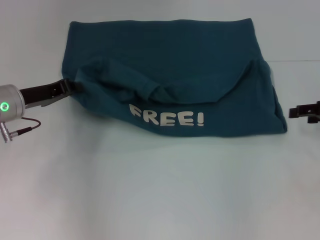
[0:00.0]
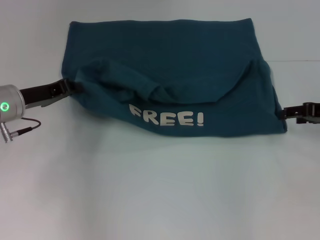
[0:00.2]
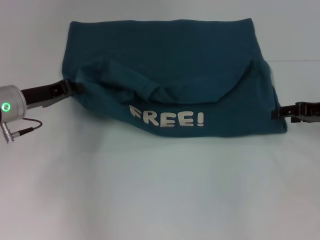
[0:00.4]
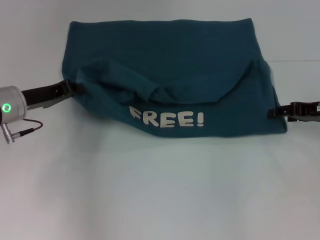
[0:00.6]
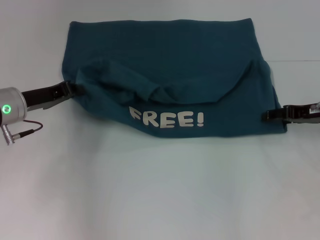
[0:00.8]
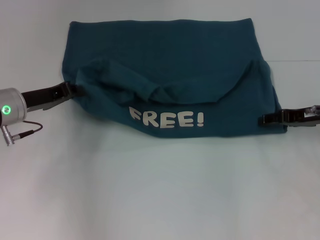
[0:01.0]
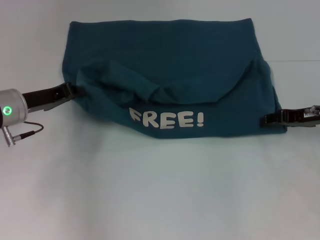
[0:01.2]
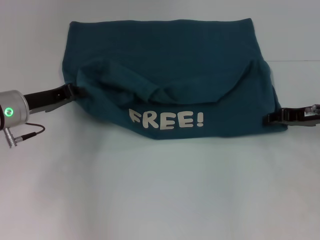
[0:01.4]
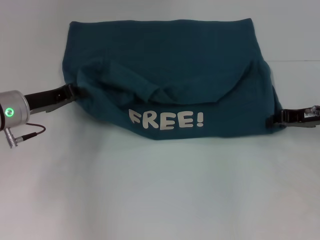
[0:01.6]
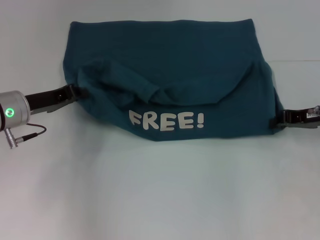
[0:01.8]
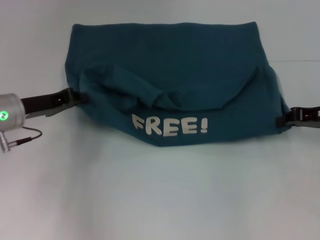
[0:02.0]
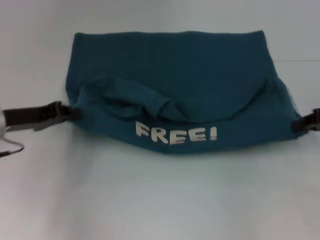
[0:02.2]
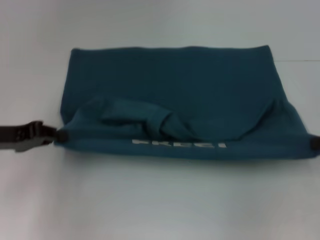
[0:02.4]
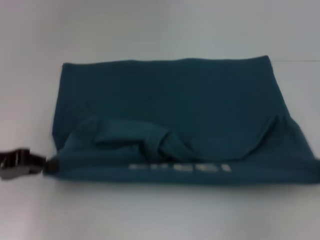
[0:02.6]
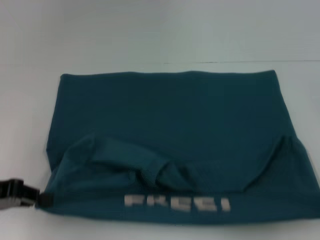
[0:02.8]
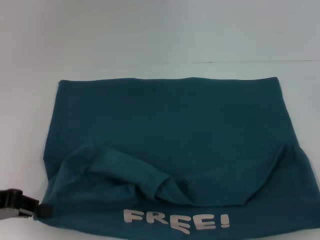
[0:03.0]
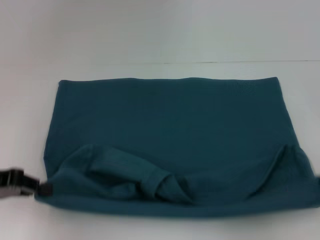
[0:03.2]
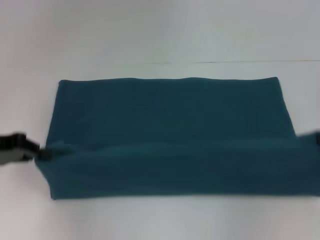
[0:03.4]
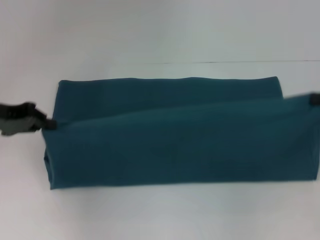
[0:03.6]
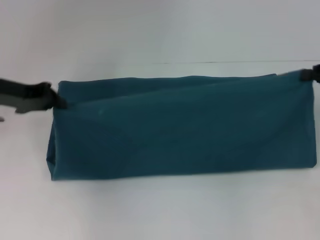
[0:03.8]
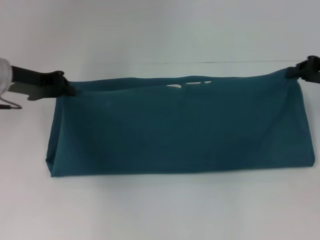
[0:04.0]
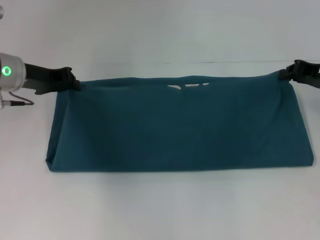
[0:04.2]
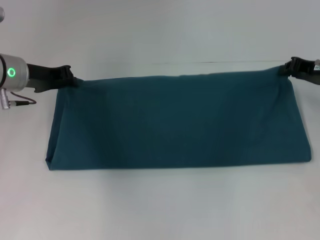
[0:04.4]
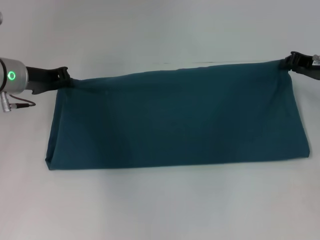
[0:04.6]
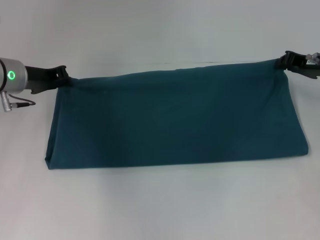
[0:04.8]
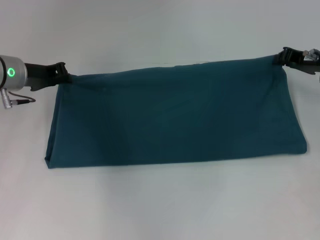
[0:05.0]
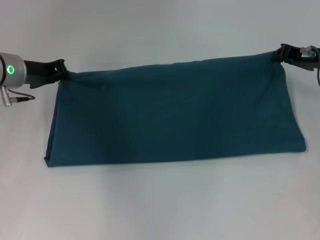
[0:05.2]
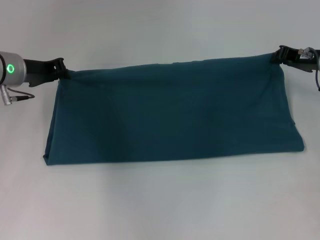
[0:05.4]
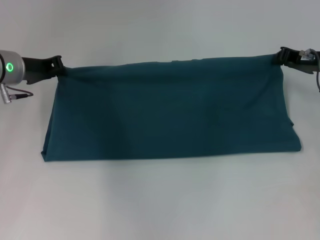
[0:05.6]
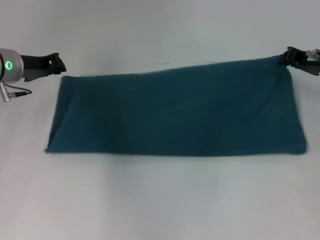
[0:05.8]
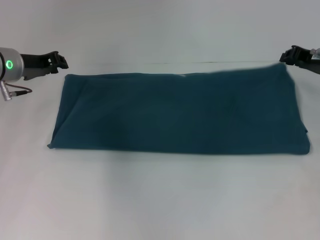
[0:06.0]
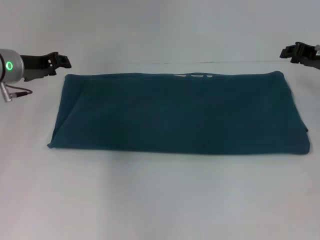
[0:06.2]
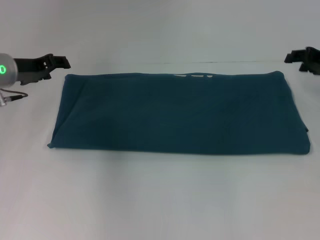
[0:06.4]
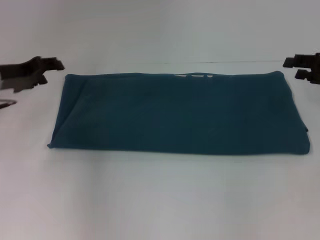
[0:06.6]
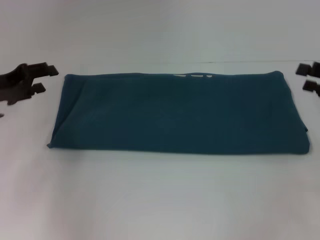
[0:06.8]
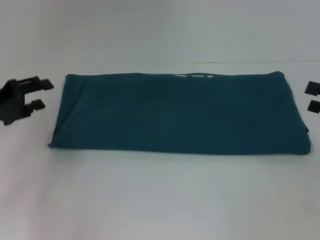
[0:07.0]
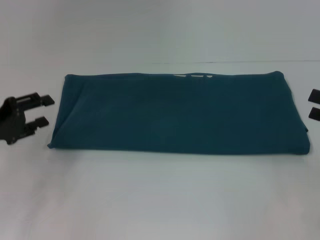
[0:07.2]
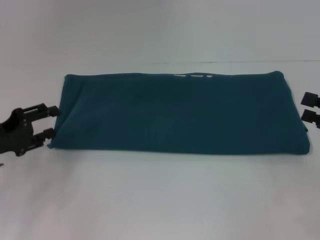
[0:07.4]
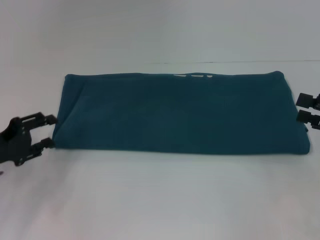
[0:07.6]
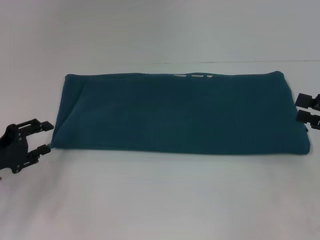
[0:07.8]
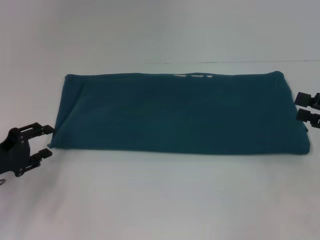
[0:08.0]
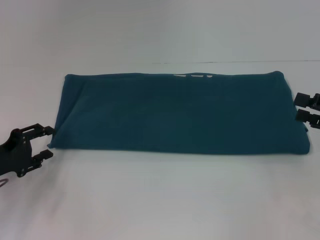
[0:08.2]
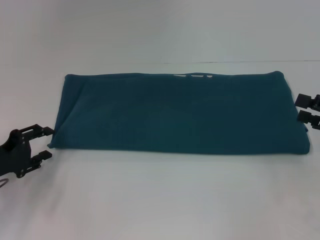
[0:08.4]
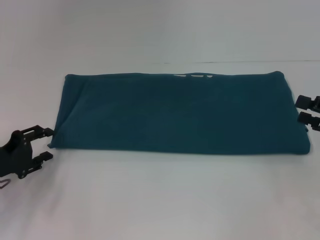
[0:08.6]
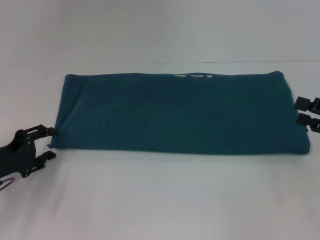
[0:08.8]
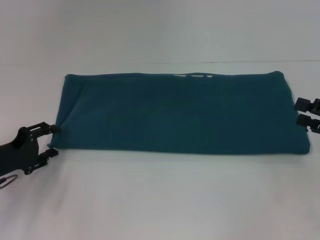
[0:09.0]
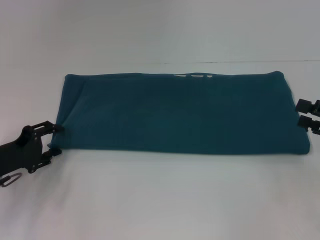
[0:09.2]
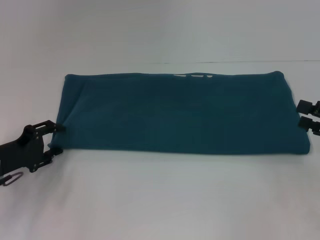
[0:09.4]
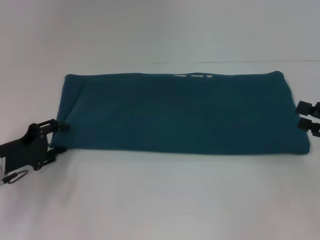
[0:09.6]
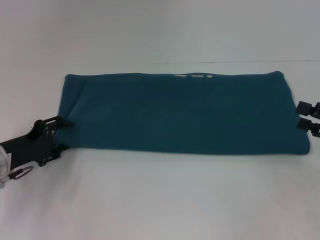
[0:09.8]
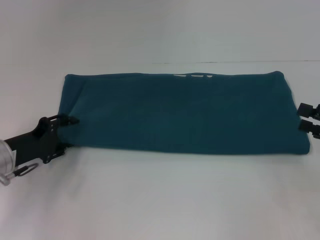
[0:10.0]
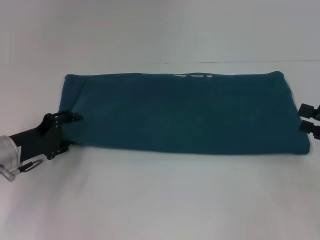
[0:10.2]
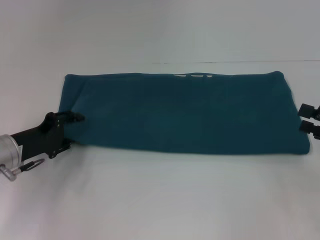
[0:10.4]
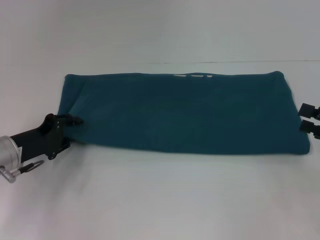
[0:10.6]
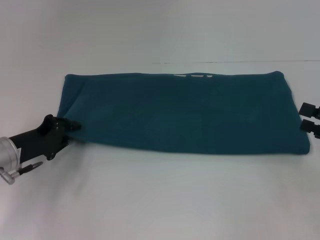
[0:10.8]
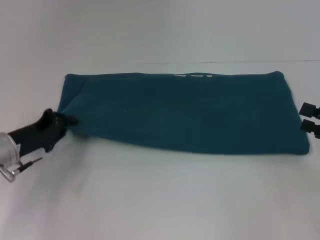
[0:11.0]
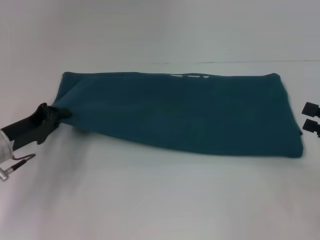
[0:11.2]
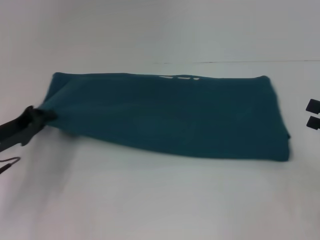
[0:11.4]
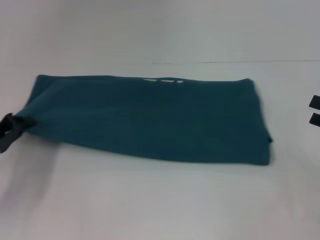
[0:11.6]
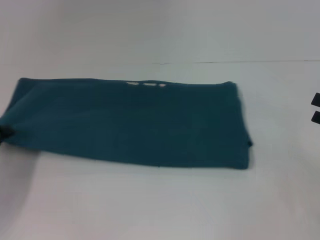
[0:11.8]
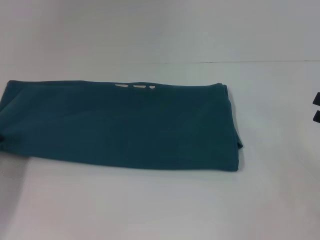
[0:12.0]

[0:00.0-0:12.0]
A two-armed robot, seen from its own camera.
Step, 0:00.0 to 0:02.8: Pull the clothes with your left hand.
Step, 0:00.0 to 0:02.8: Pull the clothes with your right hand.
Step, 0:03.0 to 0:06.2: Fold the clothes to the right.
0:00.0 to 0:01.6: The right gripper moves to the left, some 5 cm, and closes its fingers.
0:01.6 to 0:03.0: The right gripper goes roughly 15 cm backward and to the right, and closes. The left gripper is displaced backward and to the left by some 15 cm.
0:03.0 to 0:04.4: The left gripper moves forward and to the right, about 20 cm; the right gripper goes roughly 15 cm forward and to the left.
0:04.4 to 0:06.0: The grippers make only small movements.
0:06.0 to 0:07.6: The left gripper moves backward, downward and to the left, approximately 20 cm, and opens up, while the right gripper shifts approximately 15 cm backward and to the right, and opens up.
0:07.6 to 0:09.0: The grippers move only a little.
0:09.0 to 0:10.4: The grippers move only a little.
0:10.4 to 0:12.0: The left gripper travels to the left and backward by approximately 10 cm, and closes.

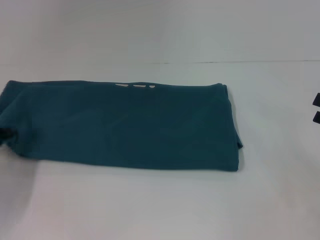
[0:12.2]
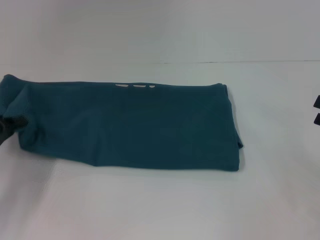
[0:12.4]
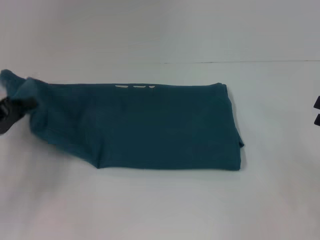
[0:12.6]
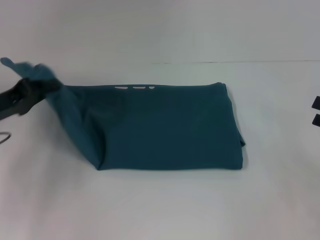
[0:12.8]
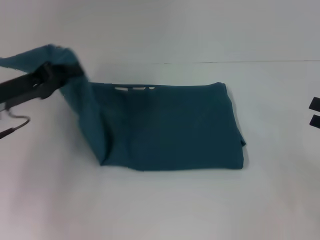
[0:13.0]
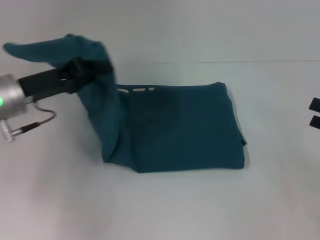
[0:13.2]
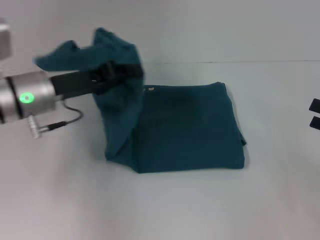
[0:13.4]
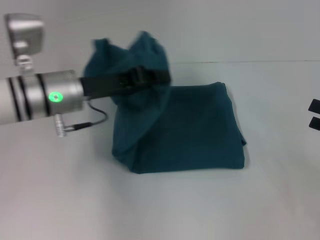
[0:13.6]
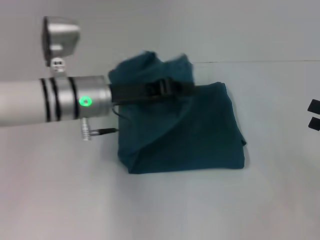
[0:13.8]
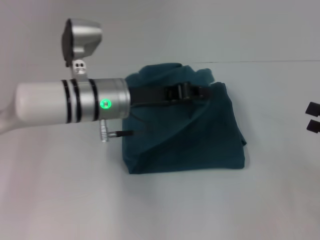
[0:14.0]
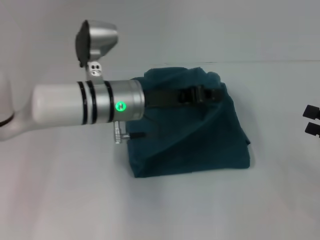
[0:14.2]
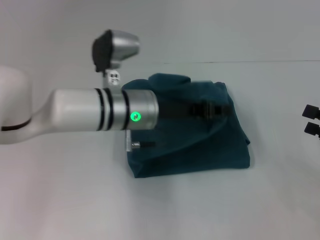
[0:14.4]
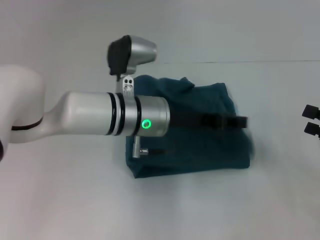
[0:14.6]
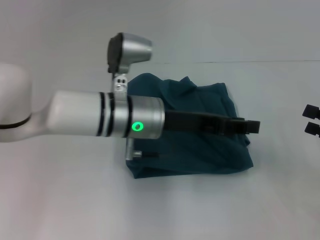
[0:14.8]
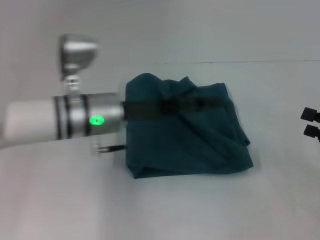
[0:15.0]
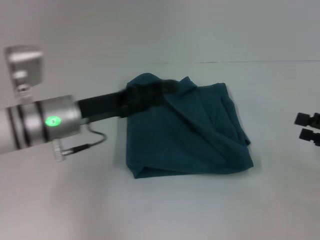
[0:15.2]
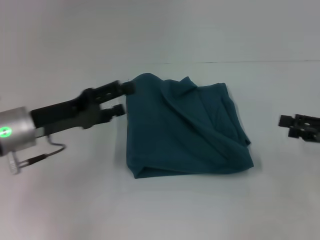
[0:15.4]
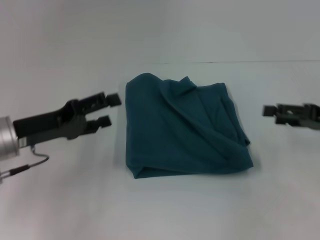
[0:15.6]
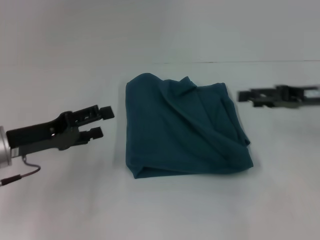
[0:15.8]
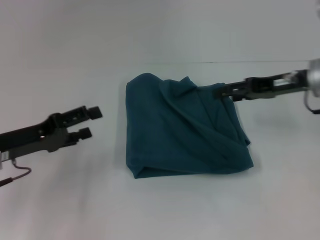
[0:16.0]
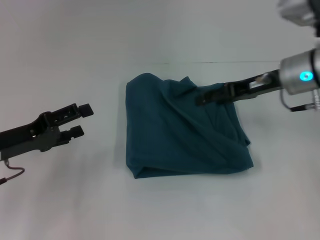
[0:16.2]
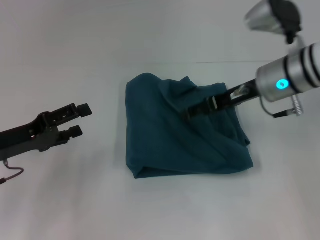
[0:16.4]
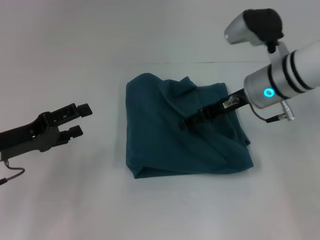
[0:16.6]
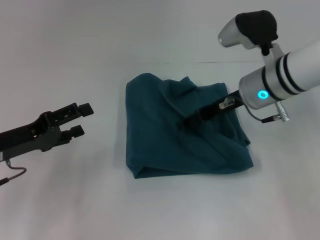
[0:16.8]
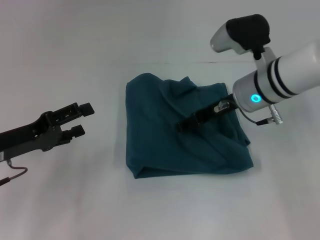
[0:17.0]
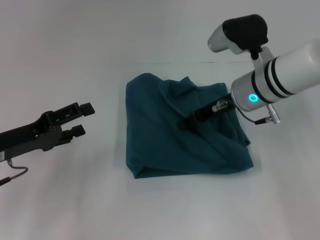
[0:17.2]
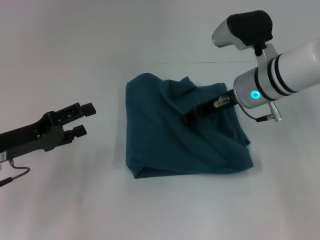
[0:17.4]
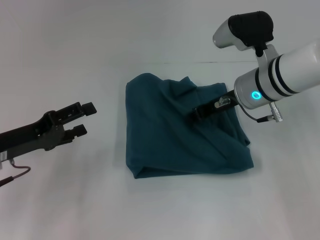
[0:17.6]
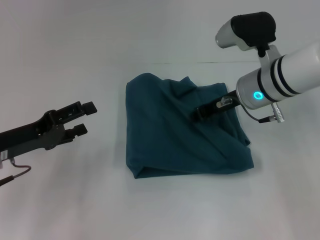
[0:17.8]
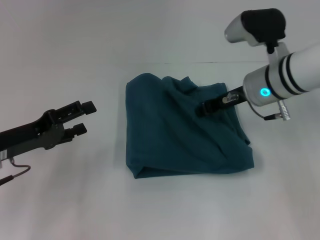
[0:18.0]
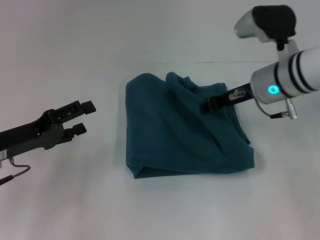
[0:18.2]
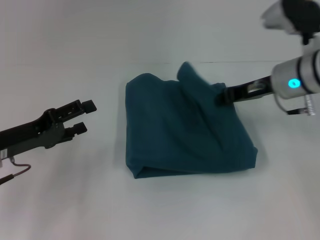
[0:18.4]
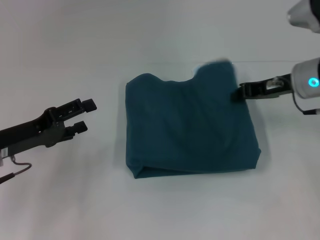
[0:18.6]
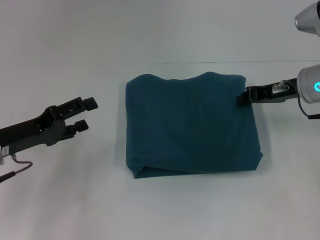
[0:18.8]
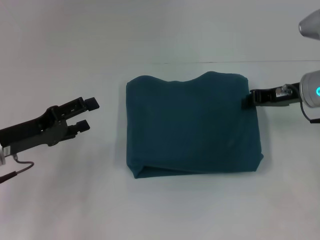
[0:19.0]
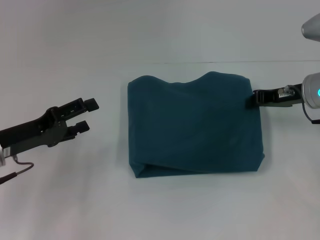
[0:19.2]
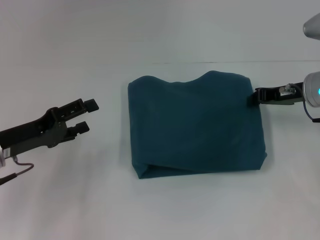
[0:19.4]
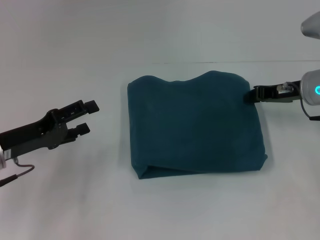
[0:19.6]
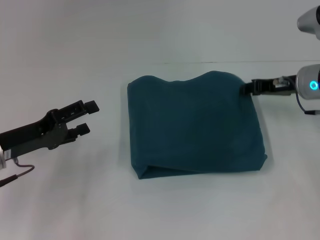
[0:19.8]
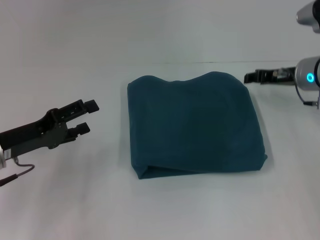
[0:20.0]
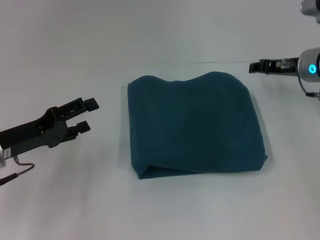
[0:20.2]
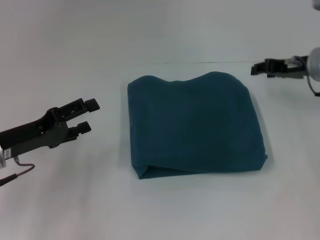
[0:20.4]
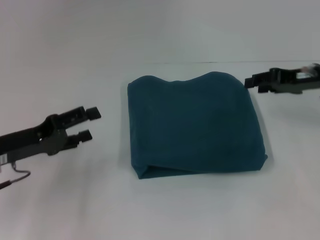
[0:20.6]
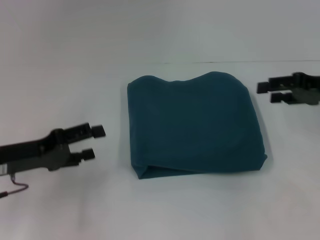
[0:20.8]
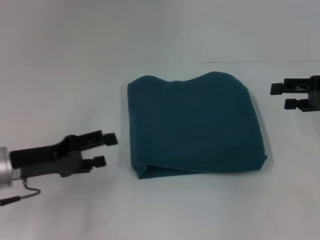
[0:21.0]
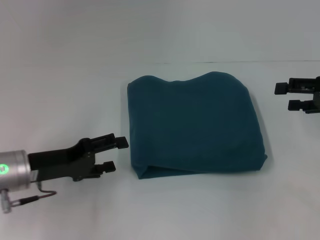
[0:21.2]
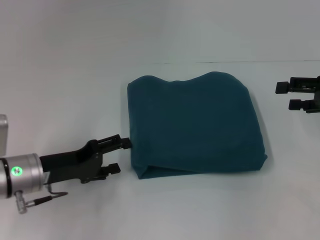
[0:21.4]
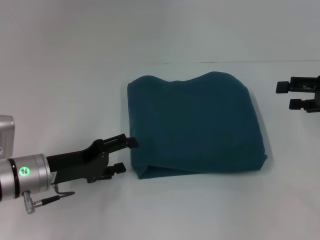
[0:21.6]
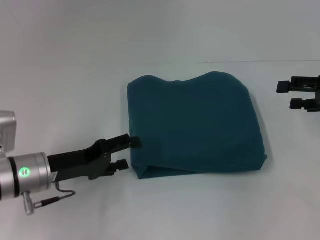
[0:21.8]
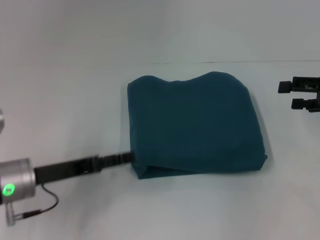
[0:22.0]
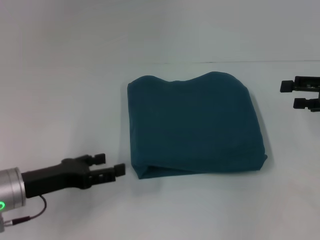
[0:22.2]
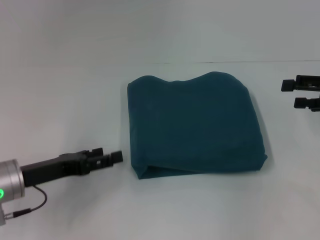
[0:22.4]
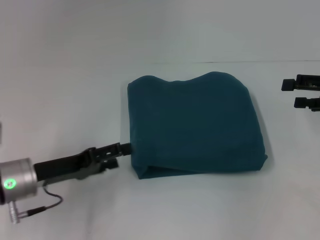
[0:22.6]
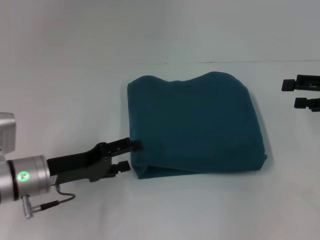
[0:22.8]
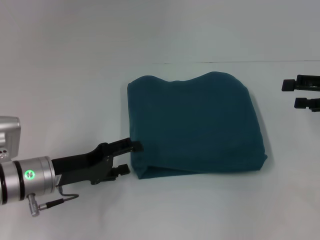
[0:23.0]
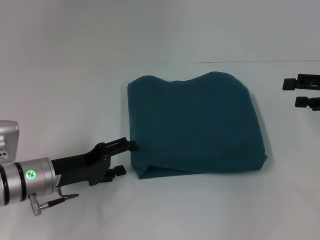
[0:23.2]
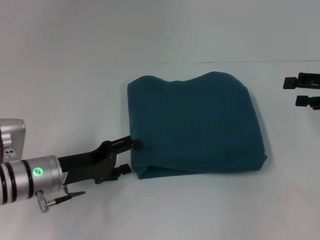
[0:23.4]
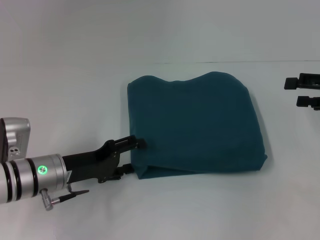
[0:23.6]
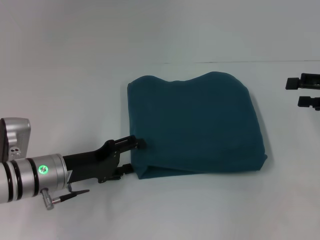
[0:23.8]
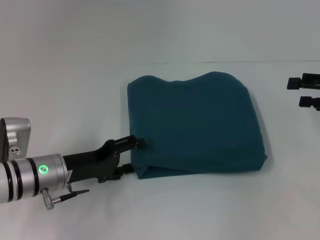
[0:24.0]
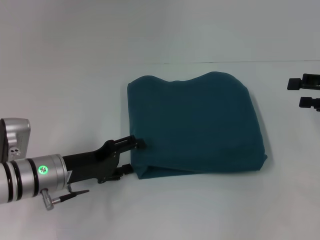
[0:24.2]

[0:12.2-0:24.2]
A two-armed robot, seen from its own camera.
Step, 0:12.2 to 0:15.2: Fold the clothes to the left.
0:12.2 to 0:13.8: The left gripper moves to the right and forward, about 25 cm.
0:13.8 to 0:15.2: The left gripper ends up some 5 cm from where it was, and opens its fingers.
0:15.2 to 0:16.6: The right gripper shifts roughly 25 cm to the left and forward, while the left gripper heads to the left and backward, covering roughly 10 cm.
0:16.6 to 0:18.2: The right gripper closes its fingers.
0:18.2 to 0:19.8: The right gripper heads to the right, covering about 5 cm.
0:19.8 to 0:21.2: The right gripper goes approximately 10 cm to the right and backward, and opens up.
